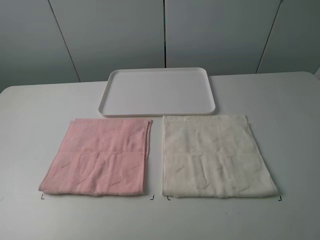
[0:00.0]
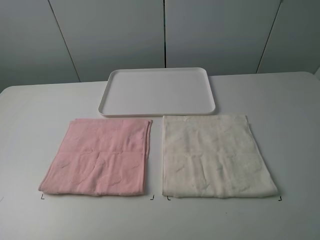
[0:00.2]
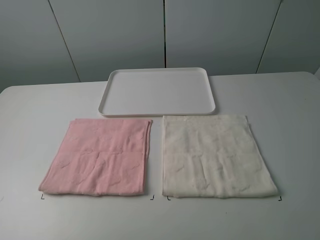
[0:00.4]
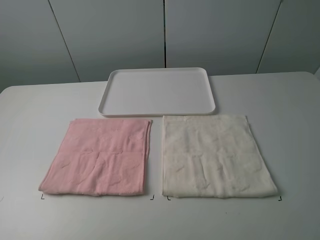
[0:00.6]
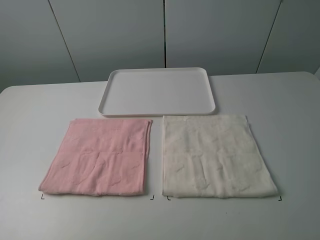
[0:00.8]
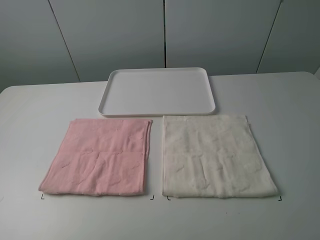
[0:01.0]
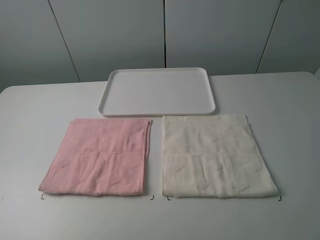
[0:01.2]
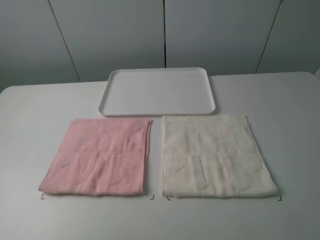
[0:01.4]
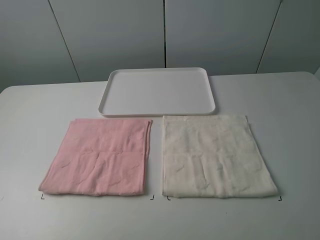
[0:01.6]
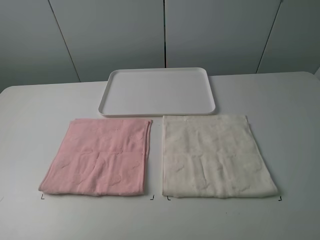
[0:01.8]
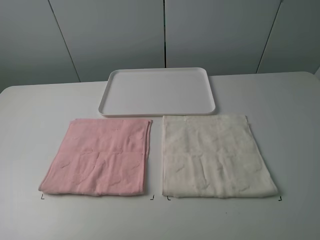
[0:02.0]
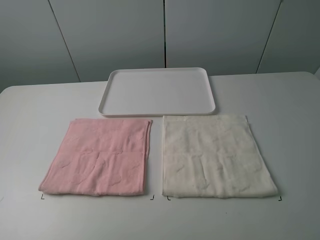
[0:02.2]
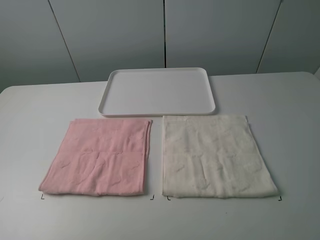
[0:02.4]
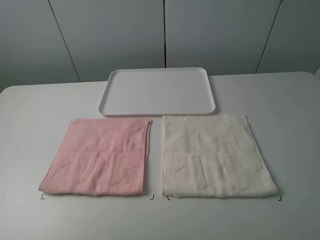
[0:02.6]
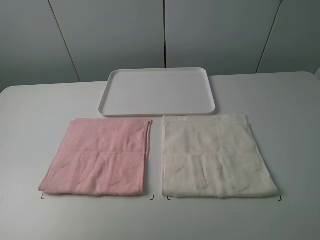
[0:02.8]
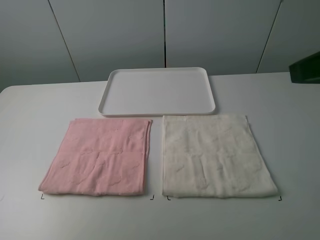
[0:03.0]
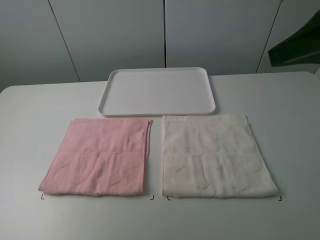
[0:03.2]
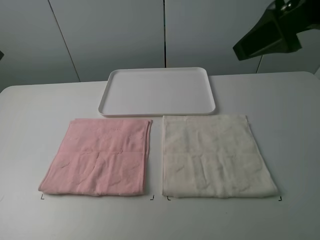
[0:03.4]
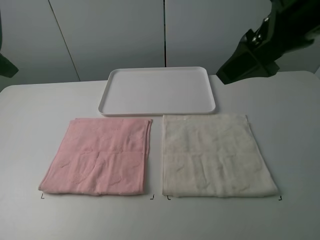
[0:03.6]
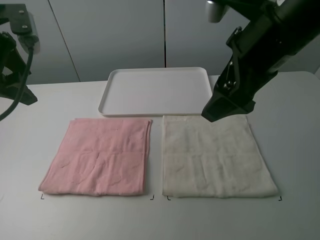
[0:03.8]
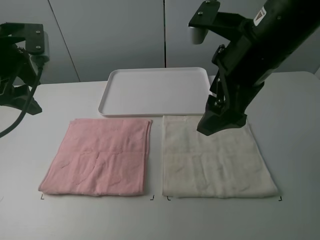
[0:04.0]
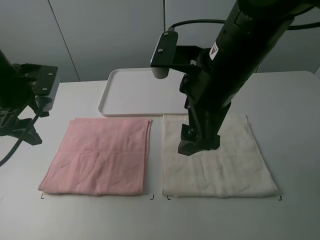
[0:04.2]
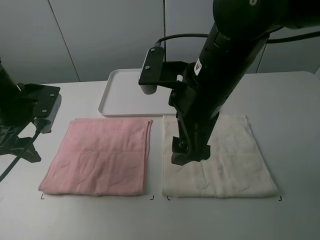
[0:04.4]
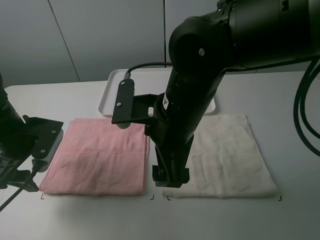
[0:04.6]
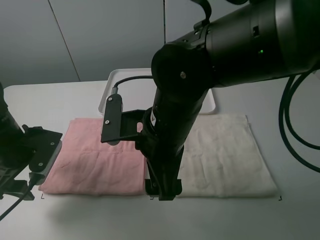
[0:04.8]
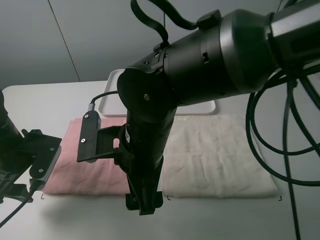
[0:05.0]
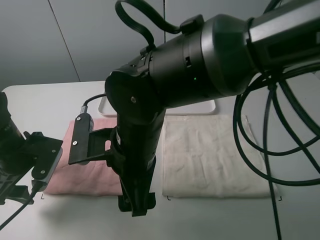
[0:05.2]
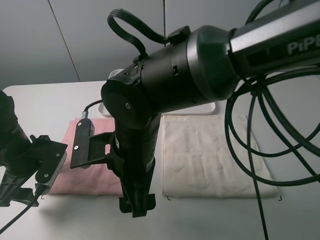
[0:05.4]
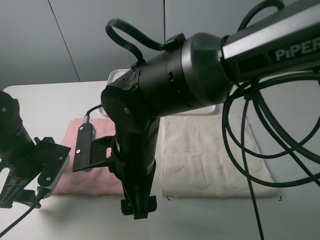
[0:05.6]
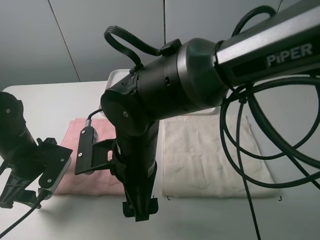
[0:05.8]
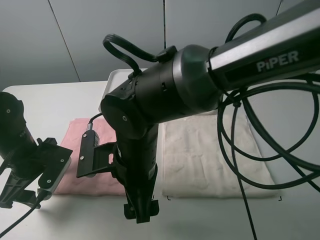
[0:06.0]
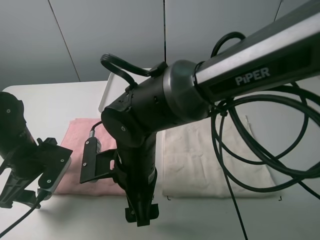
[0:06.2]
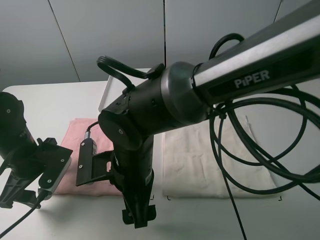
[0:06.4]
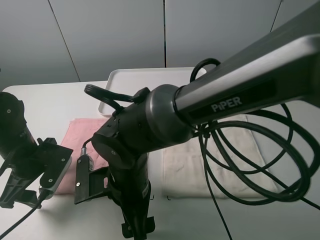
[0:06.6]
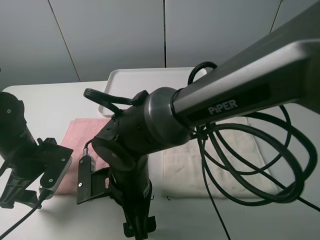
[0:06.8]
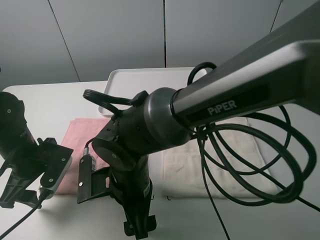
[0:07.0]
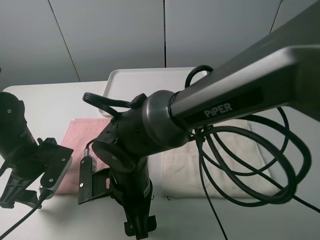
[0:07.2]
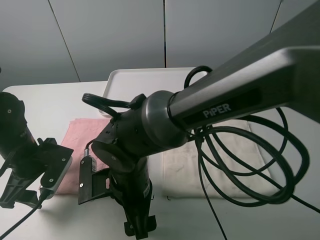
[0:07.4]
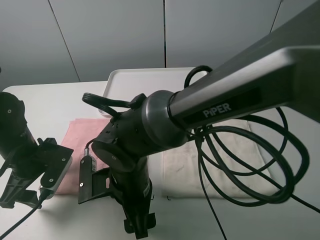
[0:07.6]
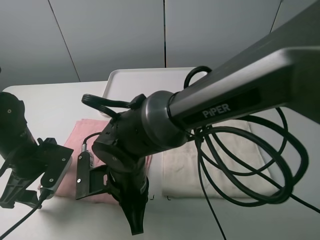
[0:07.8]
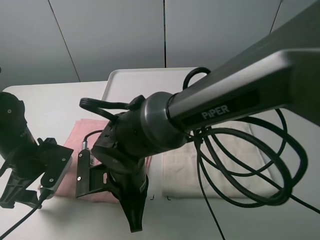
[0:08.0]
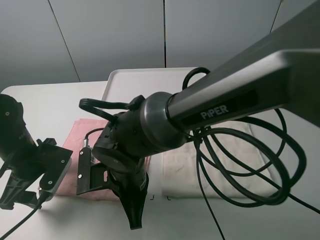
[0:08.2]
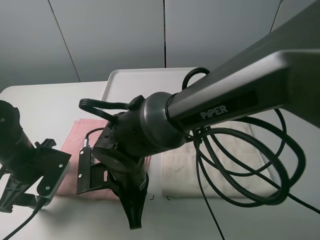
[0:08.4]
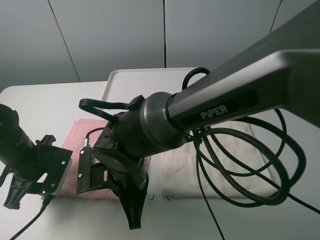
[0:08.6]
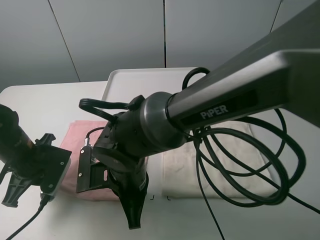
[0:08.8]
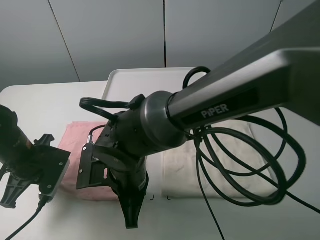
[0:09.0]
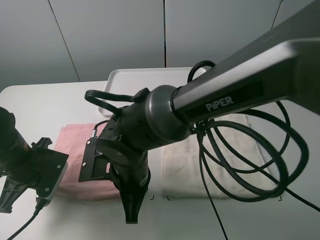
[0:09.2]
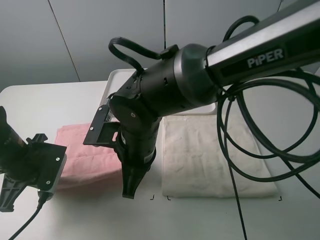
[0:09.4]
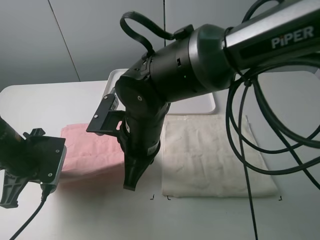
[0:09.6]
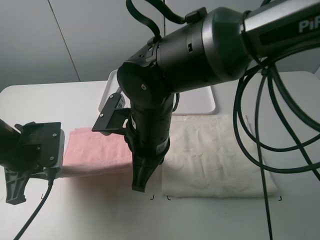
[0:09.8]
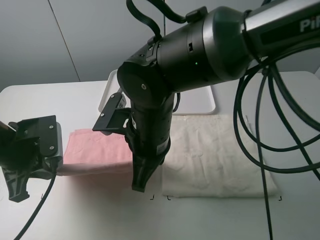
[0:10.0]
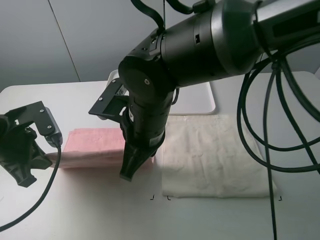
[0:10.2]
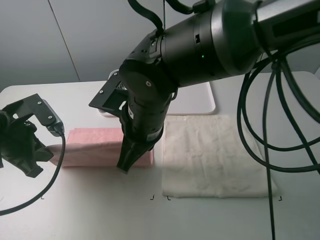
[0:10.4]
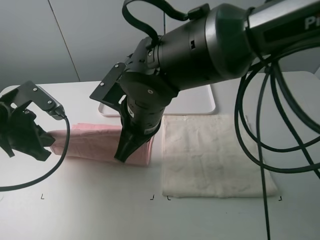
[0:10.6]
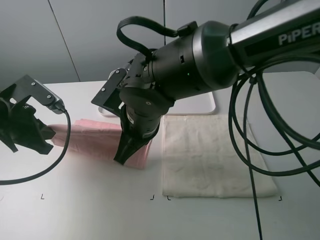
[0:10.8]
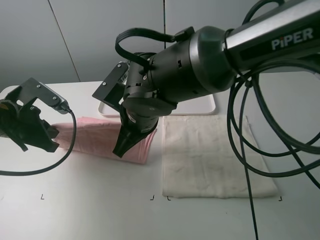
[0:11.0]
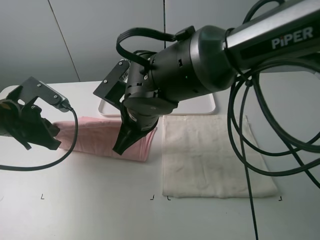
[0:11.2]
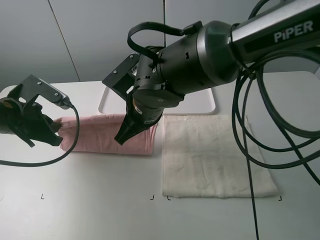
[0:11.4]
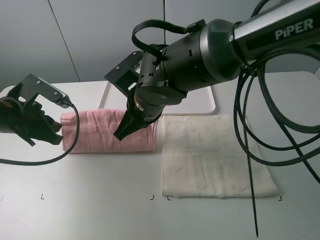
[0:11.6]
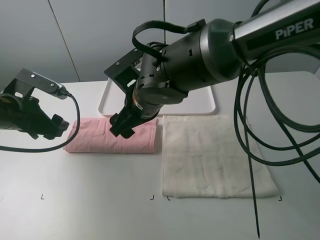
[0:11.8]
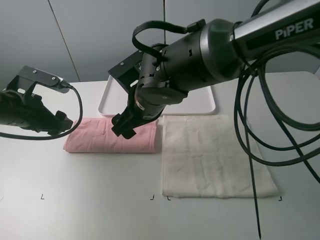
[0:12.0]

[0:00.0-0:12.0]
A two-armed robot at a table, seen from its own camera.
Task of the whole recording: fold one of the towels by two grippers and place it on the tray,then fold another towel by two grippers and place it on the folded towel.
Step, 0:00.0 to 0:09.0: Grasp the pink towel with the left gripper.
Step, 0:09.2 to 0:11.8: Fold the pink towel upwards with the left gripper.
0:00.0 to 0:01.6: Neither gripper changes place.
0:01.6 to 0:03.0: The right gripper goes approximately 15 cm forward and upward.
0:03.0 to 0:04.4: The left gripper shifts about 20 cm downward and forward; the right gripper travels to the left and downward by approximately 20 cm.
0:04.4 to 0:06.0: The right gripper shifts some 15 cm downward and to the left; the left gripper shifts some 10 cm downward.
0:07.6 to 0:09.0: The left gripper closes its fingers, while the right gripper closes up.
0:09.0 to 0:10.4: The two grippers go about 10 cm upward.
0:10.4 to 0:12.0: The left gripper is displaced forward by roughly 5 cm, and opens its fingers; the right gripper moves about 5 cm, and opens up.

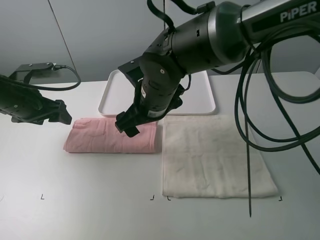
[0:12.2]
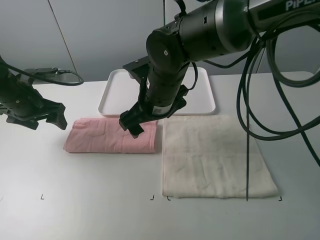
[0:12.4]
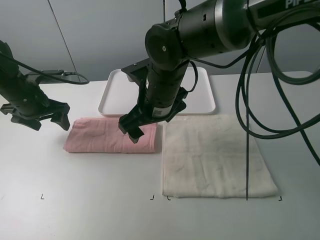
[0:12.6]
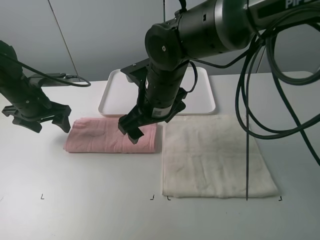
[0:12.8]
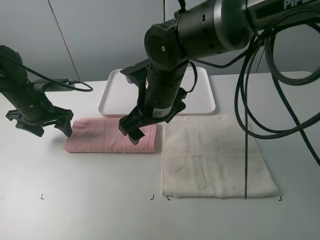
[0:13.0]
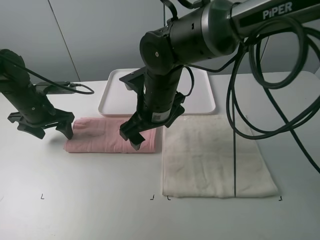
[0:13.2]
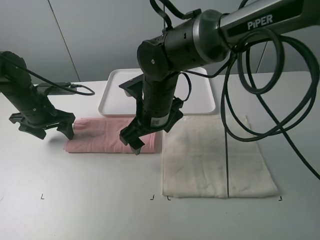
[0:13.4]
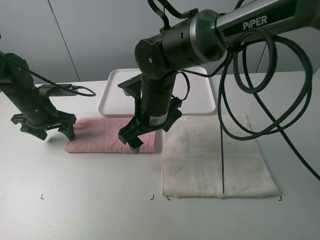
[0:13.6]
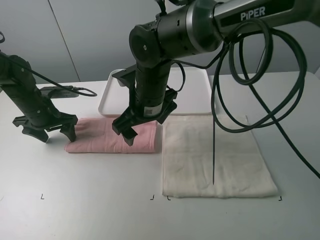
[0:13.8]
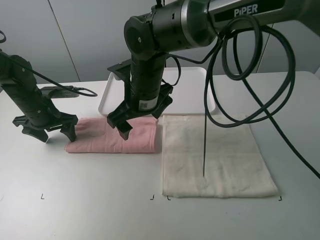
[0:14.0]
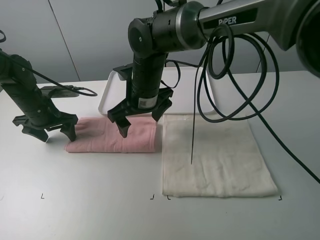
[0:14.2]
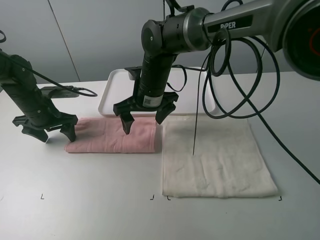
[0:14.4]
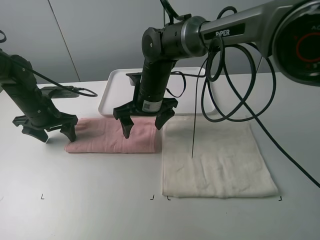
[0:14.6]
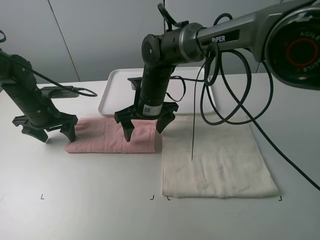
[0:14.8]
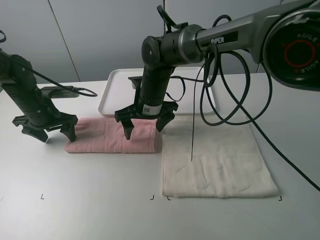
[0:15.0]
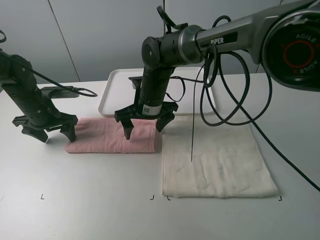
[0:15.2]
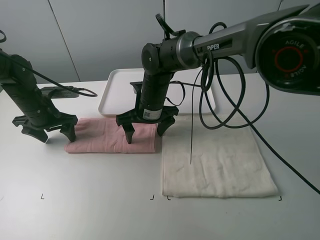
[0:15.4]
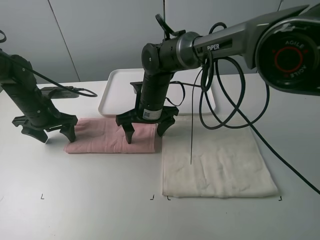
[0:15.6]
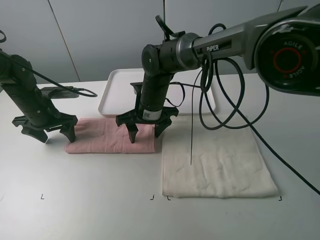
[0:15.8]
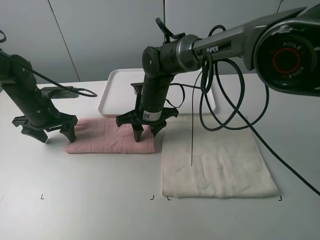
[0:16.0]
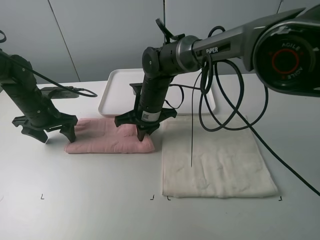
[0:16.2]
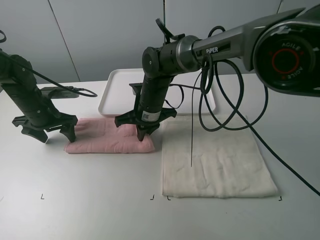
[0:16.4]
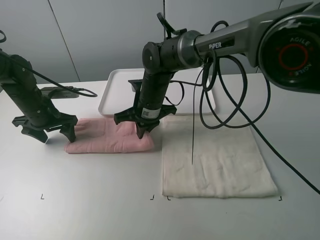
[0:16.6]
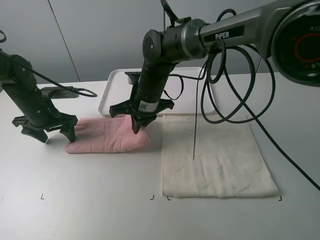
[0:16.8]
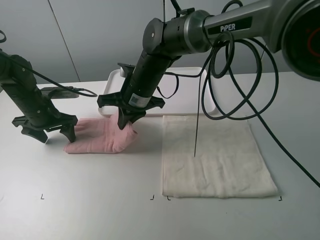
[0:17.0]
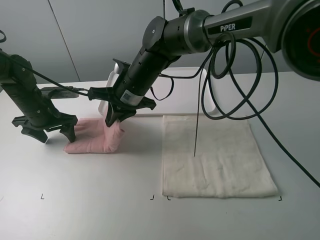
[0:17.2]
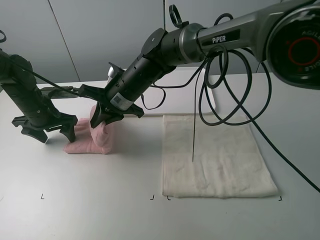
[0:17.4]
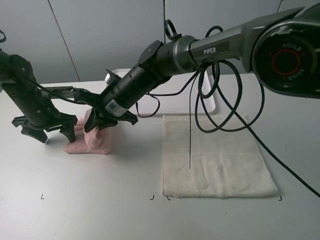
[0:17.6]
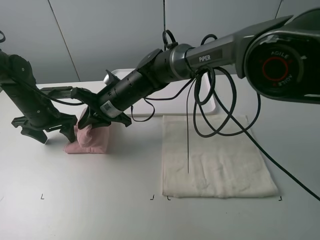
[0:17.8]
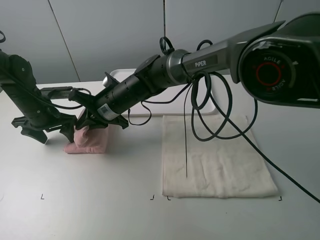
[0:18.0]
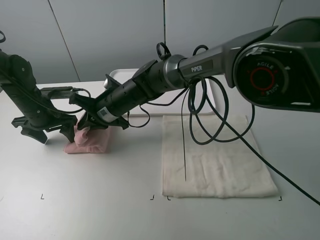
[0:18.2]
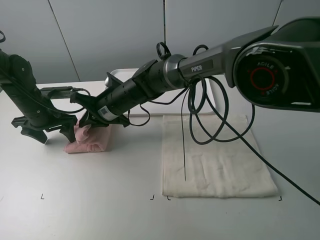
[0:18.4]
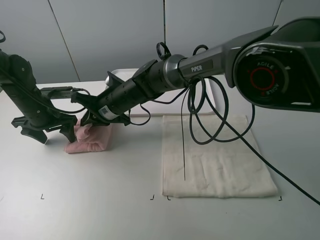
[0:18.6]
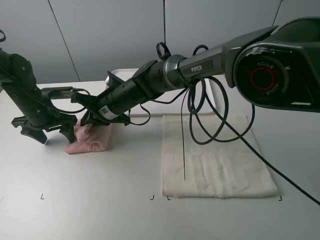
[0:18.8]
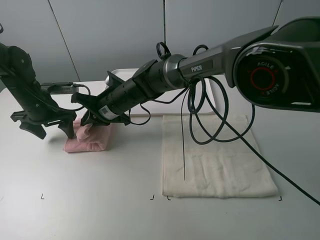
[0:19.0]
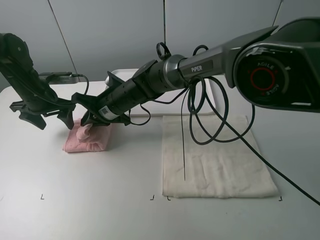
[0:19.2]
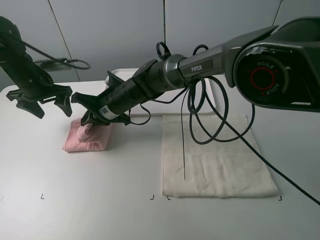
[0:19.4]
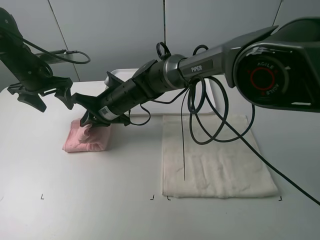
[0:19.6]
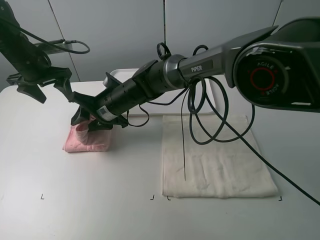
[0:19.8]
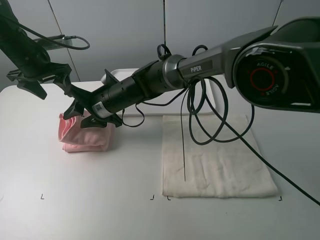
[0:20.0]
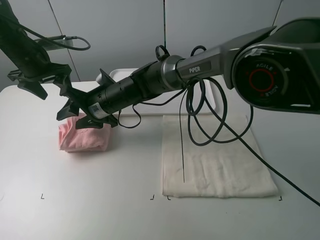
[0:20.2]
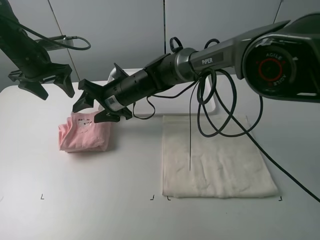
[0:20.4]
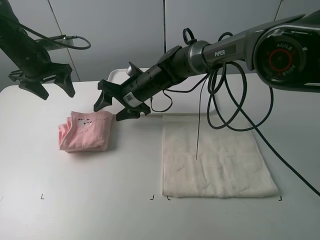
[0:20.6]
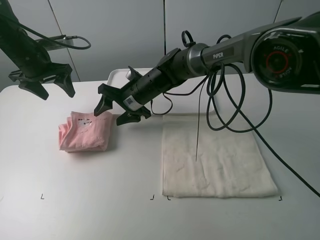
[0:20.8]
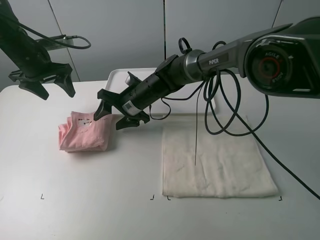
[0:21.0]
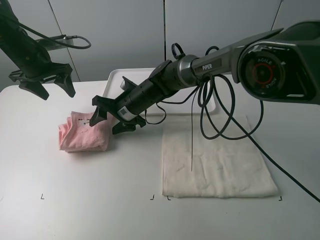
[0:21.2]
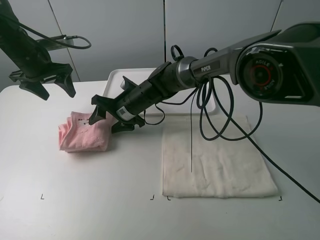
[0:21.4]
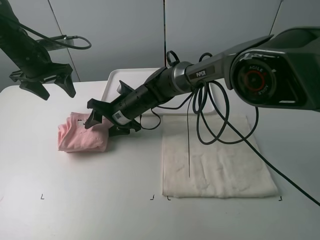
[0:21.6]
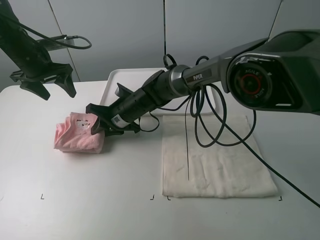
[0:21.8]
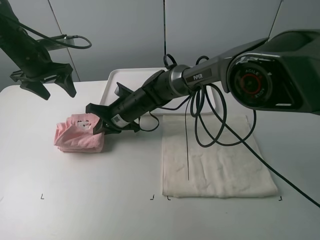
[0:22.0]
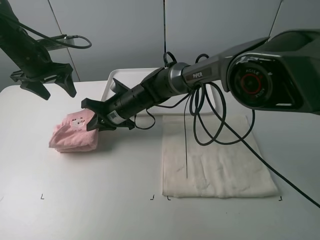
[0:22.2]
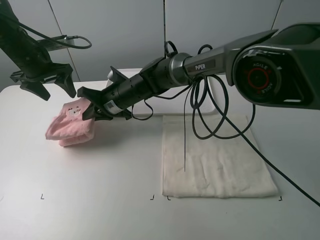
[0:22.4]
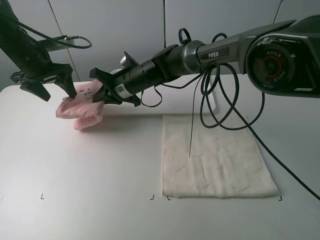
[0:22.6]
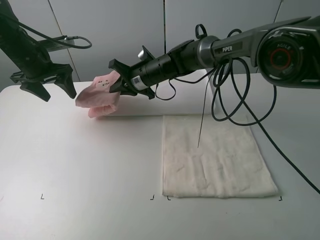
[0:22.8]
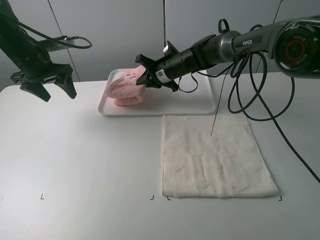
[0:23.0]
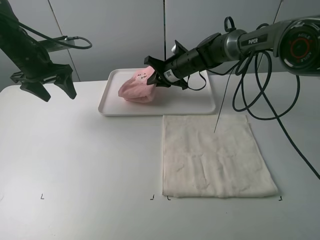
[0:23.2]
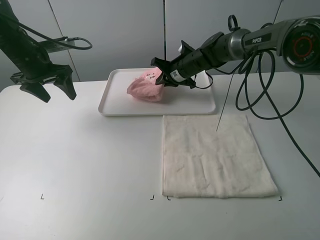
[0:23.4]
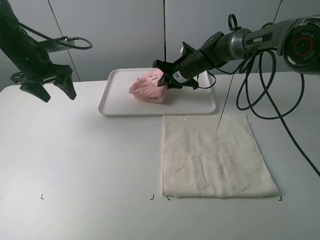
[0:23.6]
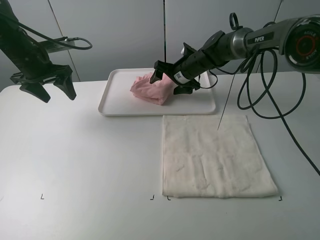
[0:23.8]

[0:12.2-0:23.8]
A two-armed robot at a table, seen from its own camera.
Task of the whole recording: fold one of the towels by two grippers and place it on the tray,then fold another towel by two grippers and place it on the folded towel.
Step, 0:12.2 to 0:13.6: Press the pink towel with the left gripper.
Step, 0:13.8 to 0:16.4: Grasp the pink towel with the right gripper.
Step, 0:16.6 to 0:19.6: Fold the pink towel from right to left with right gripper.
Step, 0:19.8 to 0:22.0: Grasp the pink towel with the right gripper.
0:12.2 to 0:13.6: The left gripper shifts roughly 5 cm downward.
0:13.6 to 0:15.0: The right gripper heads forward, covering roughly 5 cm.
0:15.0 to 0:16.6: The right gripper closes.
0:16.6 to 0:18.0: The right gripper travels to the left by roughly 5 cm.
0:18.0 to 0:19.4: The left gripper shifts about 5 cm upward.
0:19.4 to 0:21.0: The right gripper ends up about 5 cm from where it was, and opens up.
0:21.0 to 0:22.4: The right gripper closes.
0:22.4 to 0:23.8: The right gripper heads to the right and forward, covering about 20 cm, and opens its fingers.
